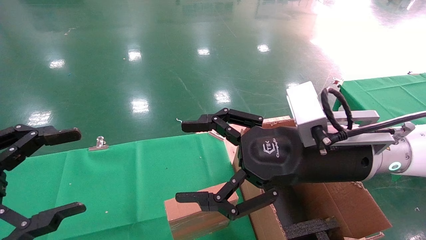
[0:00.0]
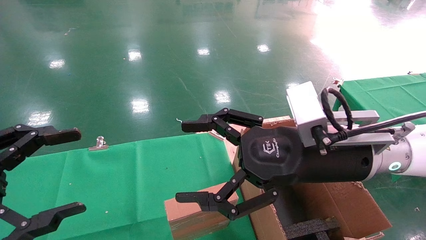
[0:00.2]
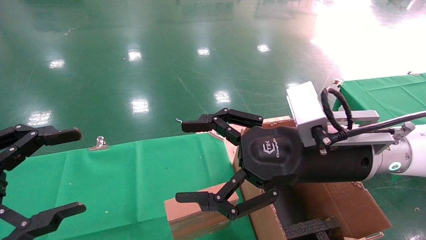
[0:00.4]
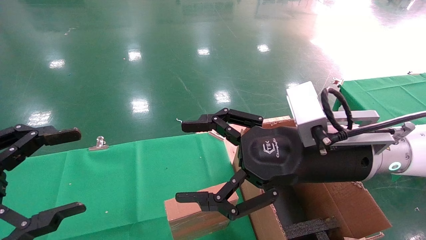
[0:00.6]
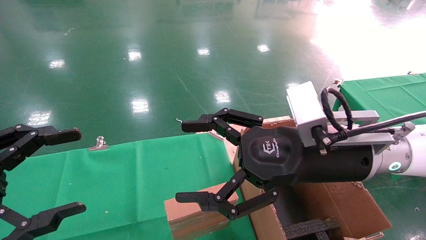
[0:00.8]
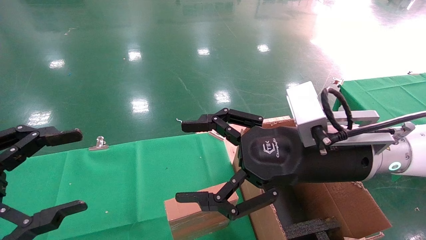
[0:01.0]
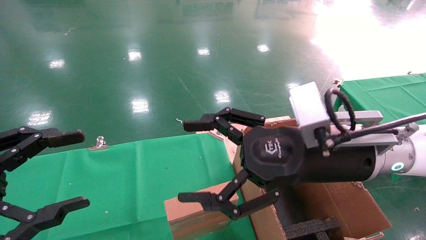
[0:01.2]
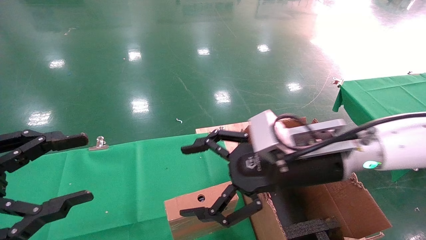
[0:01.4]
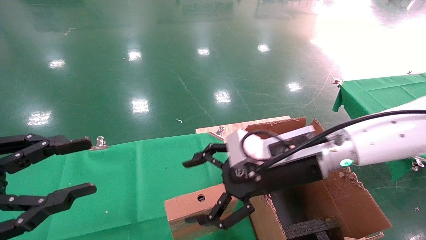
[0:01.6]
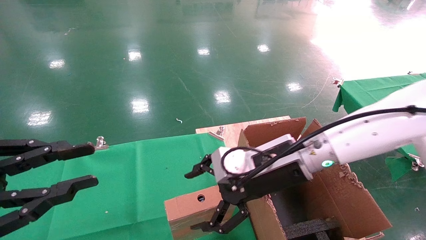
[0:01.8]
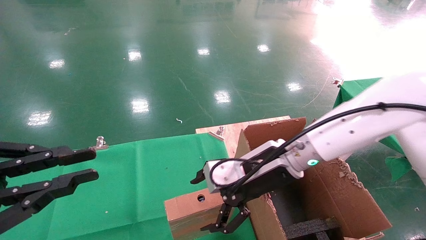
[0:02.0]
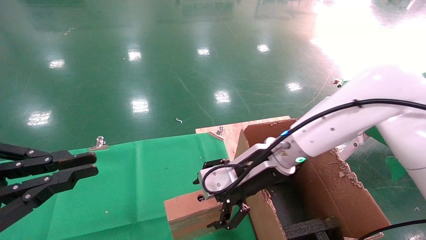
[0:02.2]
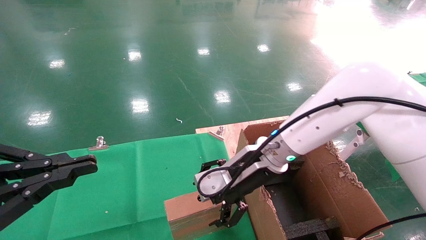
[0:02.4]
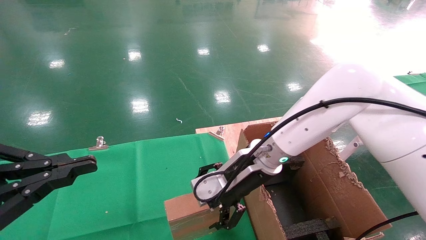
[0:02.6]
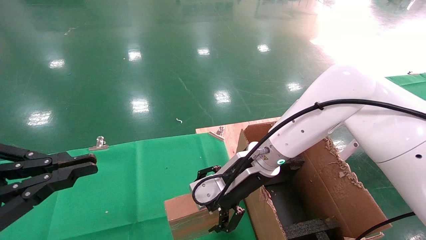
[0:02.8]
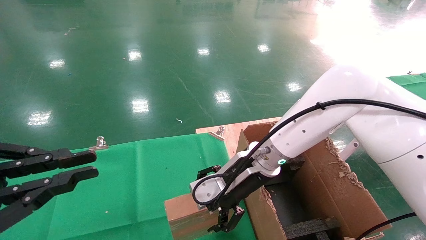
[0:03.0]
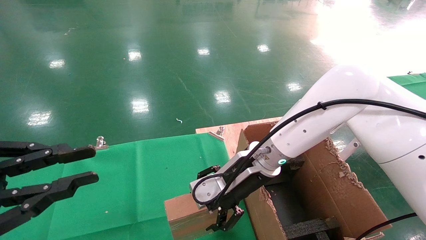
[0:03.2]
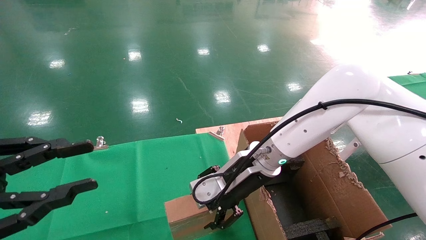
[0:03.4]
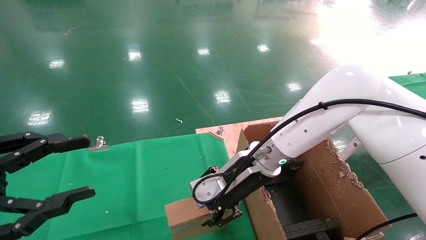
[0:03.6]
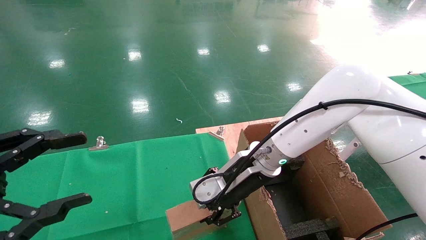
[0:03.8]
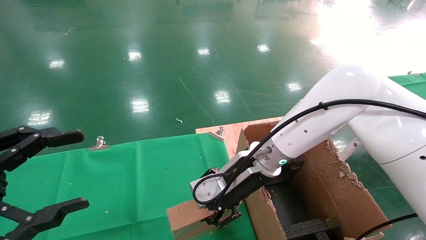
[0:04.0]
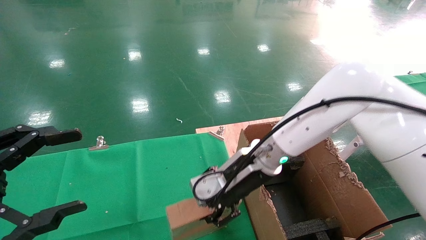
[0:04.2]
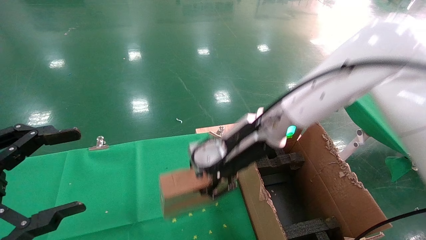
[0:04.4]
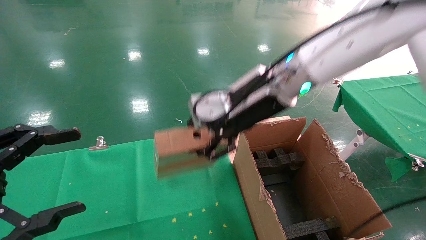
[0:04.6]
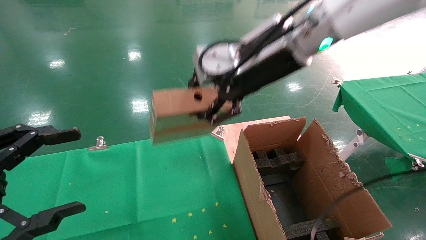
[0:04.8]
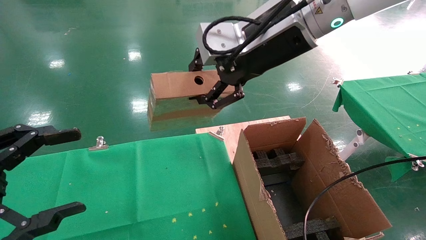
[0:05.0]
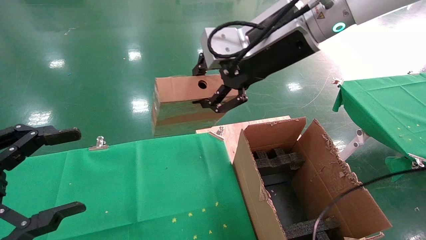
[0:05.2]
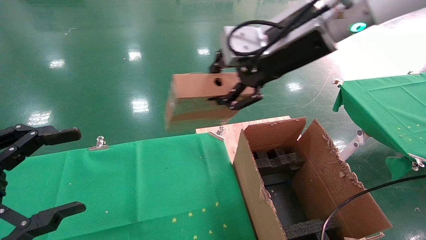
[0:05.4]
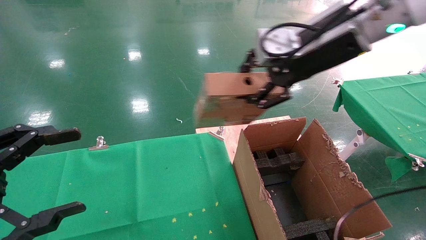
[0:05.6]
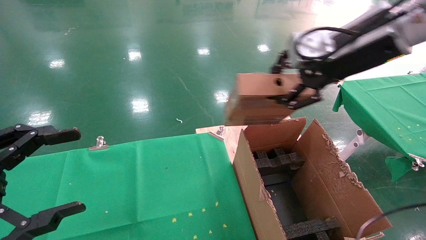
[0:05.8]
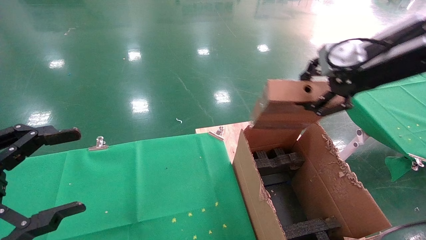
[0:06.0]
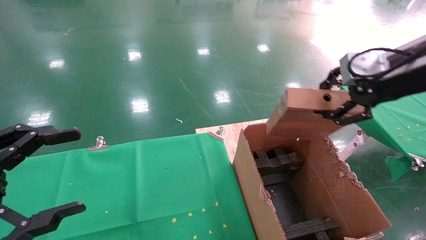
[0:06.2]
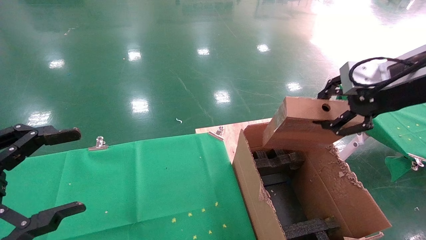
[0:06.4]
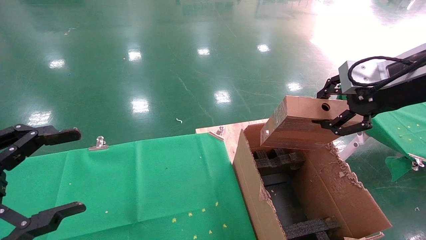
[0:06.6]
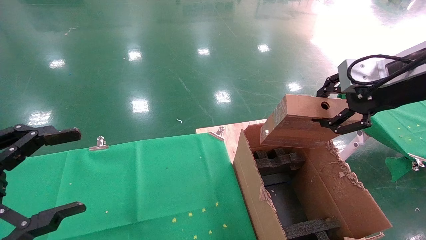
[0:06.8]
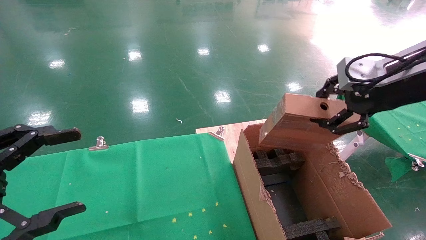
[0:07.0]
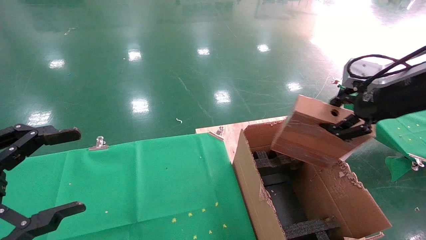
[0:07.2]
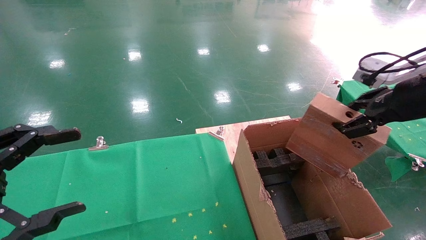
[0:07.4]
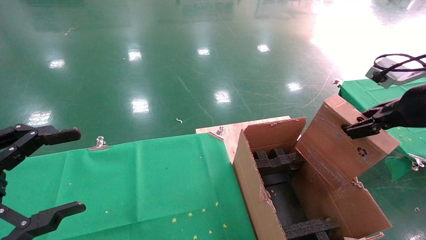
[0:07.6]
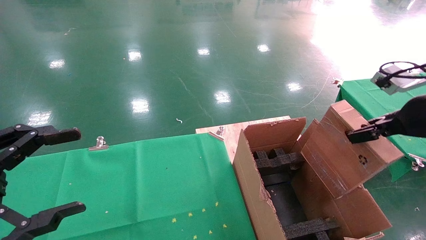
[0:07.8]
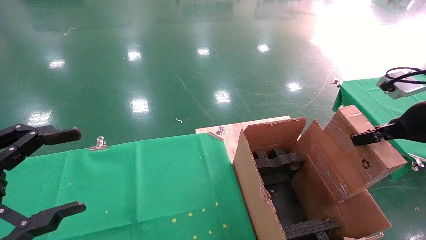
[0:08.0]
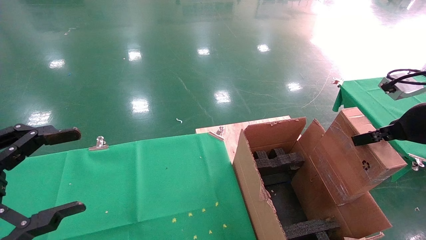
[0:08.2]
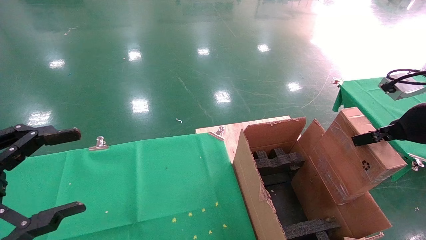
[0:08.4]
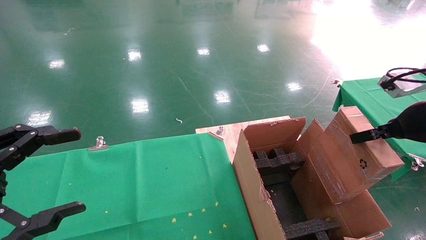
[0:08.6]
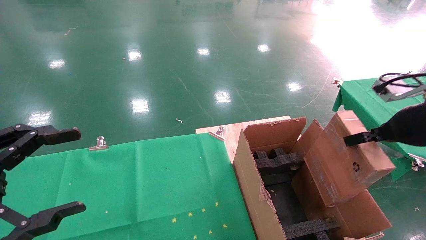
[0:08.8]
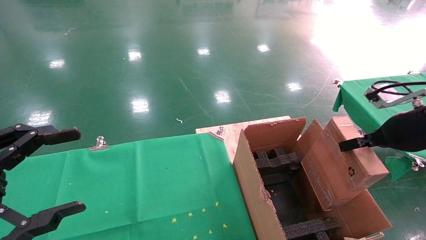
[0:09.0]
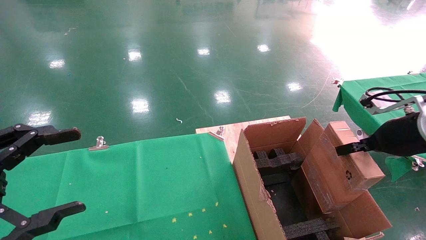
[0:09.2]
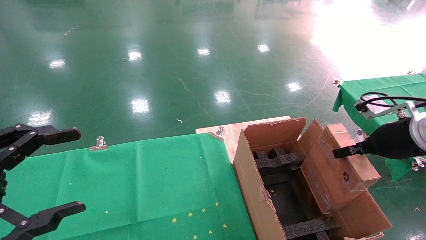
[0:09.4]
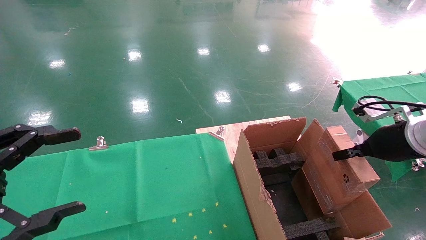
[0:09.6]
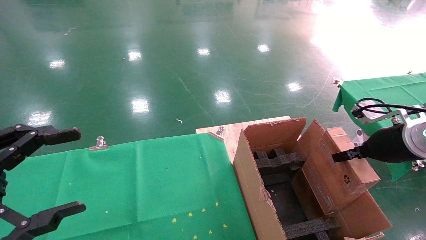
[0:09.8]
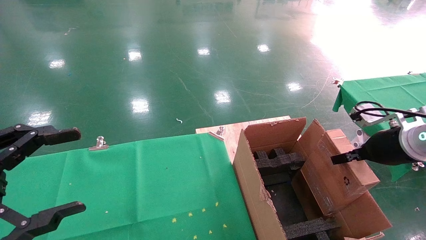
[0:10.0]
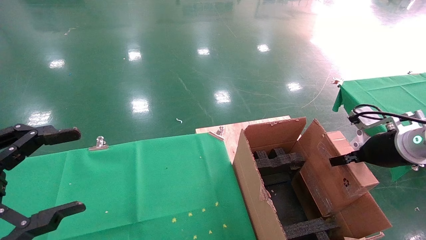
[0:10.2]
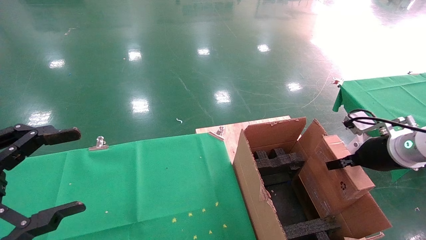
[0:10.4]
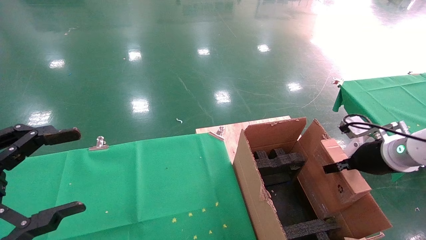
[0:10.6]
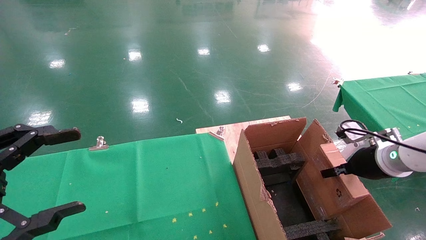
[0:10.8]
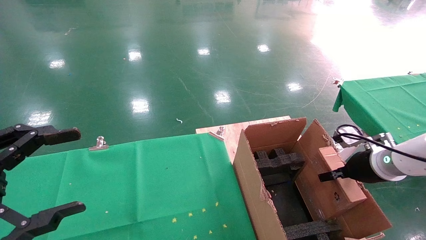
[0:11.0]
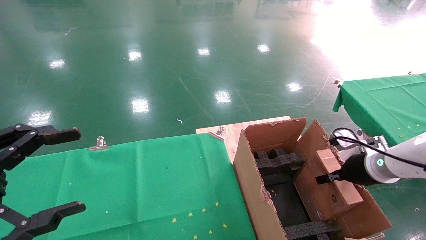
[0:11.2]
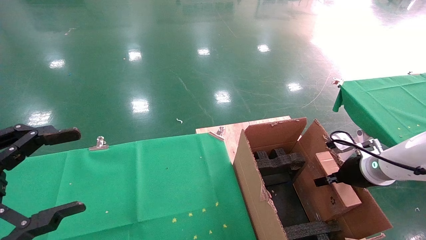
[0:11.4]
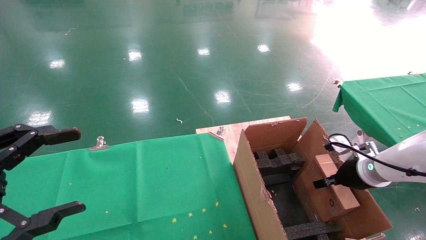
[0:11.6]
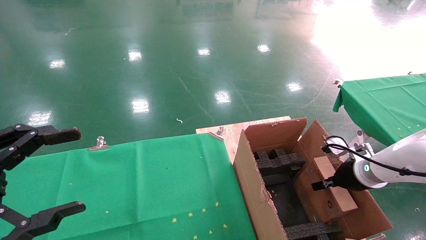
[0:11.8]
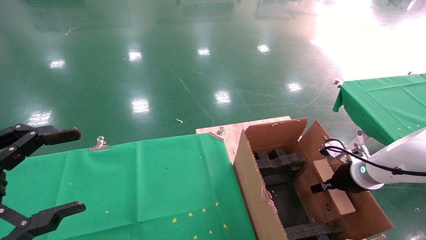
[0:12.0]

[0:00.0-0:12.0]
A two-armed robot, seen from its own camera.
Task of the whole recording: using a robotic arm to pick up a cardboard box and palace it the carton.
Step, 0:01.6 to 0:03.8: Pick up the mouse and the power cord paper box.
0:00.0 to 0:01.6: The left gripper closes; the right gripper travels forward by some 5 cm.
0:01.6 to 0:03.0: The right gripper is displaced forward and to the left by roughly 10 cm, while the left gripper closes.
0:03.0 to 0:04.4: The left gripper opens. Meanwhile the right gripper shifts approximately 10 cm upward, and closes its fingers.
0:04.4 to 0:06.0: The right gripper travels to the right and upward by some 25 cm.
0:06.0 to 0:07.6: The right gripper heads to the right and downward, covering roughly 10 cm.
0:07.6 to 0:09.0: The right gripper heads downward, covering some 5 cm.
0:09.0 to 0:10.4: The right gripper goes some 10 cm downward.
0:10.4 to 0:12.0: The right gripper goes about 10 cm downward.

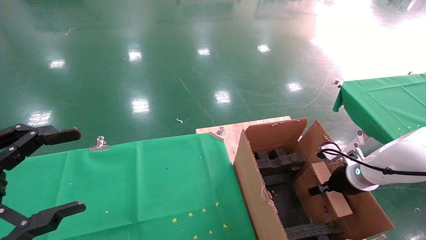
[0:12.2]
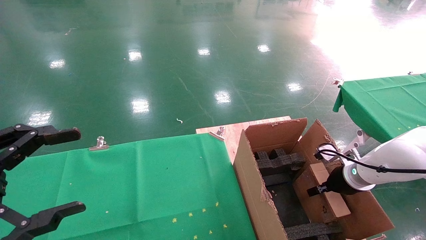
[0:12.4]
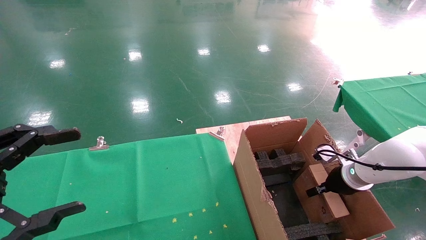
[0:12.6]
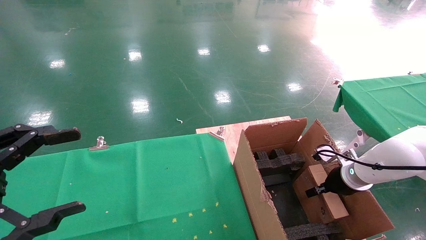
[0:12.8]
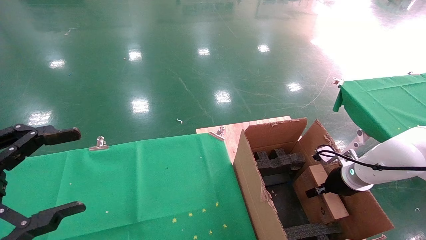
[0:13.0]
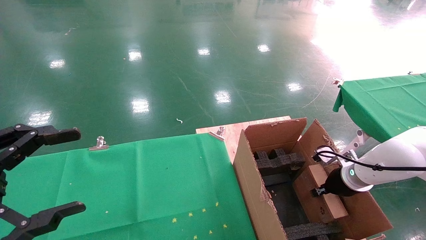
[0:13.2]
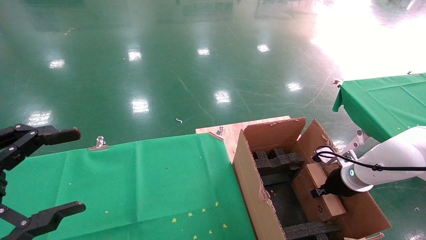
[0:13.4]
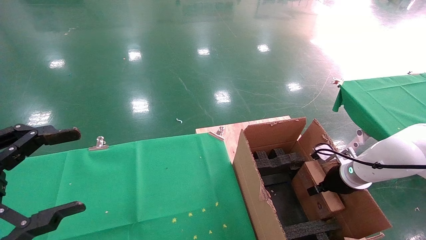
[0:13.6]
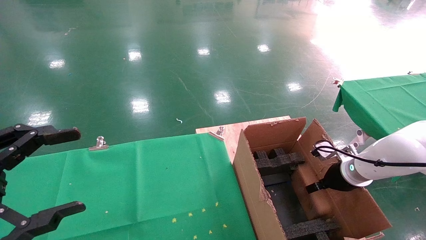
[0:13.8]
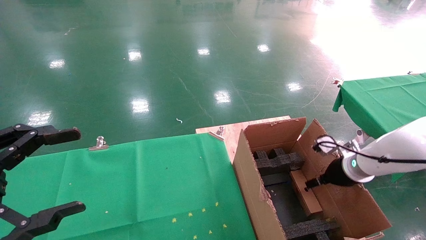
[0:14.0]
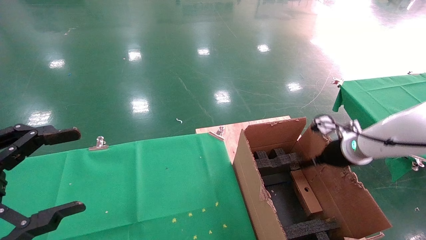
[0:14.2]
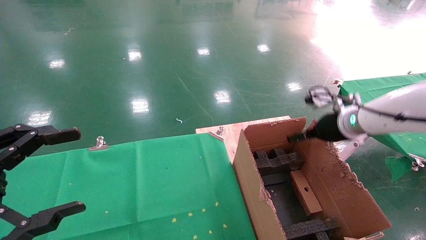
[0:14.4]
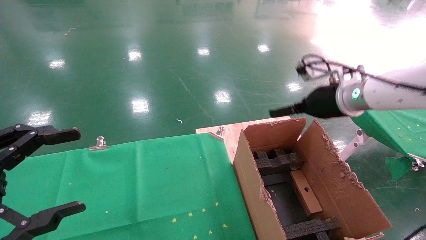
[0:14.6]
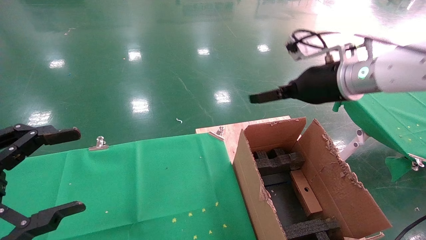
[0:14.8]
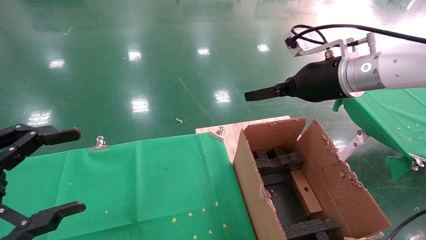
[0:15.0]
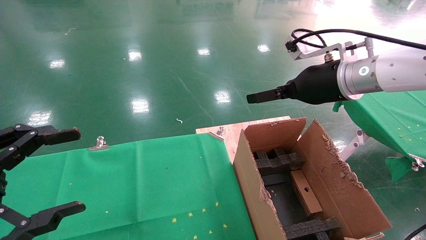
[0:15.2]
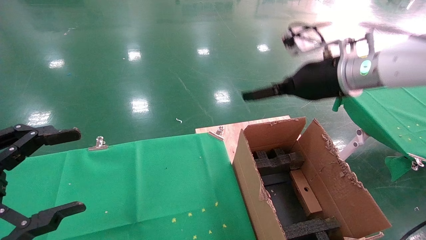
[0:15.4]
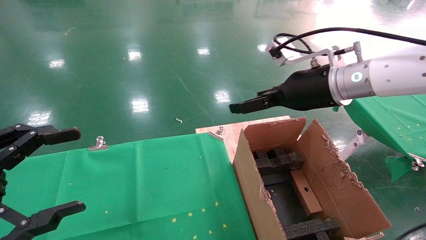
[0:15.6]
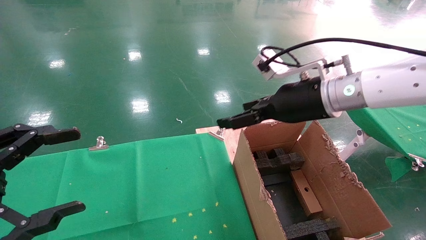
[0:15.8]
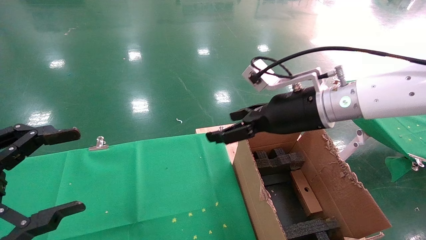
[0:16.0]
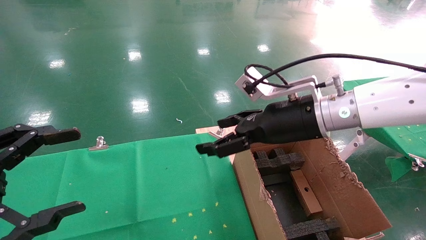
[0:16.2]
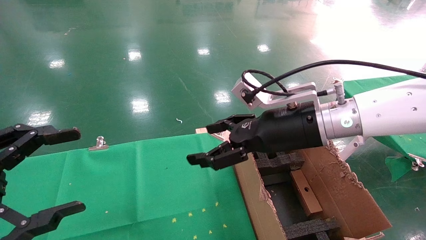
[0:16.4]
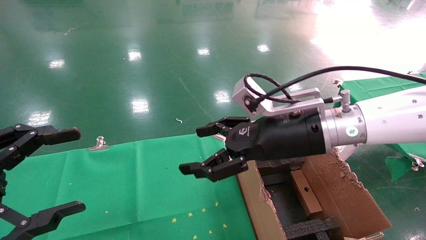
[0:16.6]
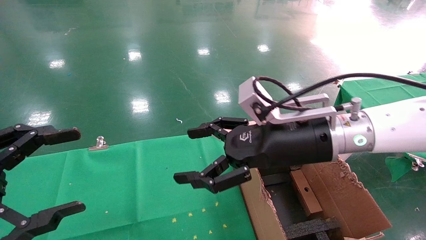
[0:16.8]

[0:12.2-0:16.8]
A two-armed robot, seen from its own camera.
Task of the whole recording: using a robotic arm to pick up a cardboard box and palace it the carton.
0:12.2 to 0:13.8: The right gripper opens.
0:13.8 to 0:15.2: The right gripper shifts some 25 cm upward and to the left, and opens up.
0:15.2 to 0:16.8: The right gripper is displaced to the left, downward and backward by some 10 cm.
